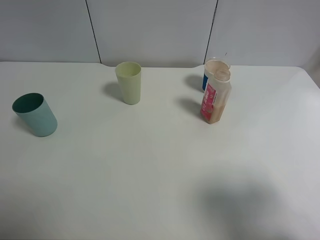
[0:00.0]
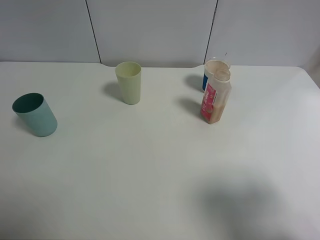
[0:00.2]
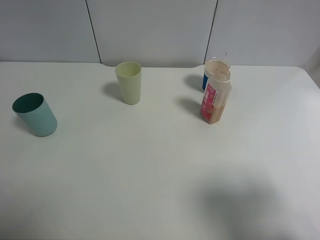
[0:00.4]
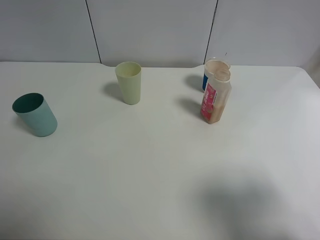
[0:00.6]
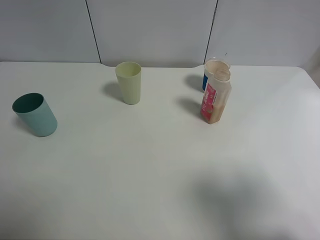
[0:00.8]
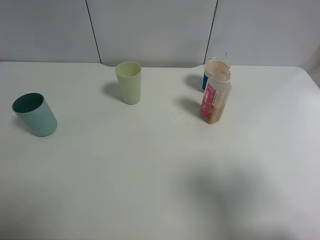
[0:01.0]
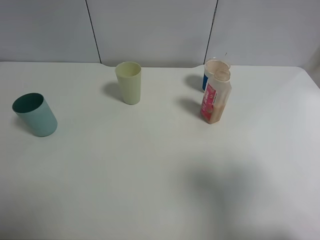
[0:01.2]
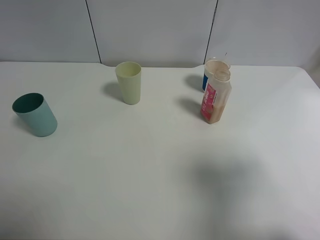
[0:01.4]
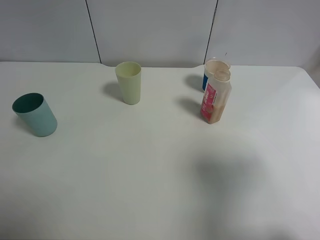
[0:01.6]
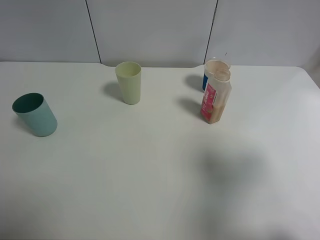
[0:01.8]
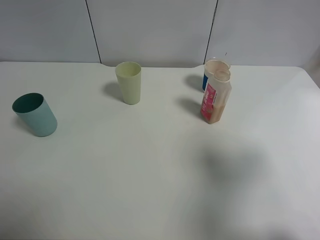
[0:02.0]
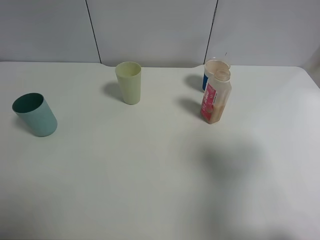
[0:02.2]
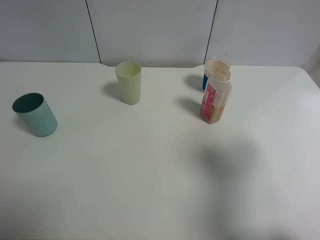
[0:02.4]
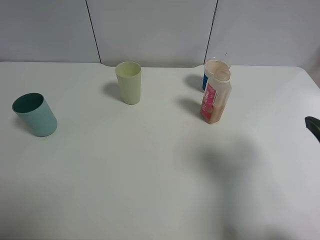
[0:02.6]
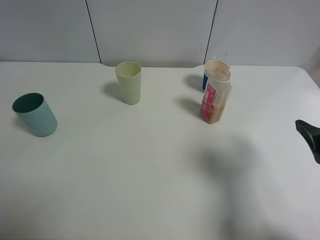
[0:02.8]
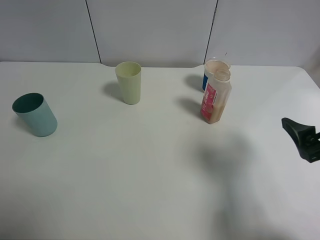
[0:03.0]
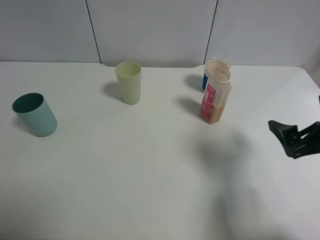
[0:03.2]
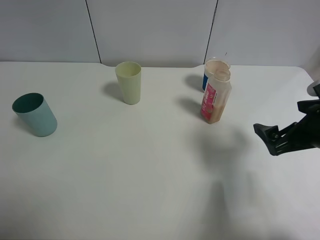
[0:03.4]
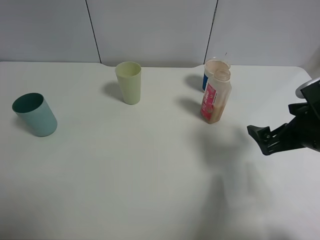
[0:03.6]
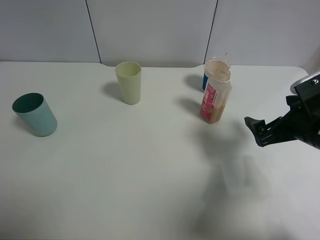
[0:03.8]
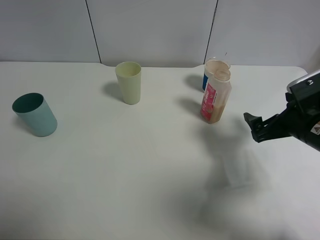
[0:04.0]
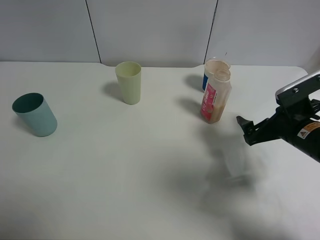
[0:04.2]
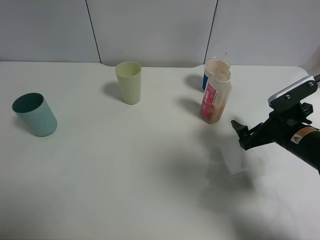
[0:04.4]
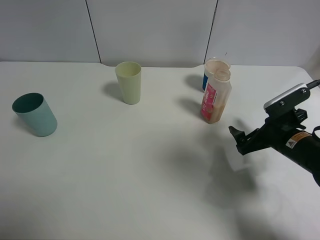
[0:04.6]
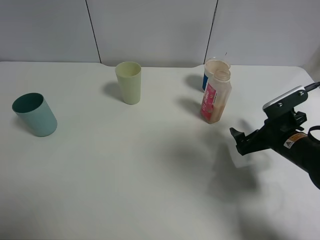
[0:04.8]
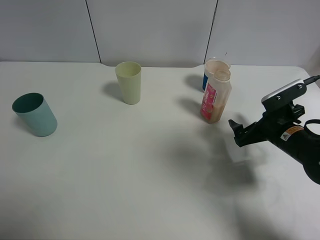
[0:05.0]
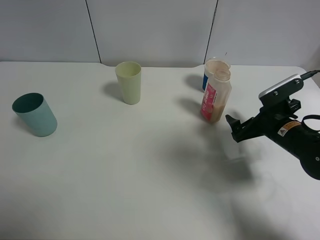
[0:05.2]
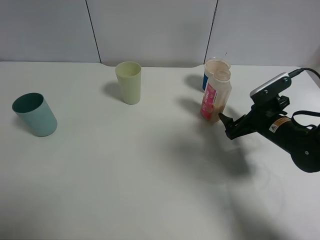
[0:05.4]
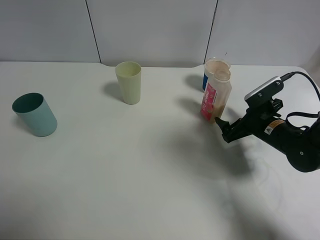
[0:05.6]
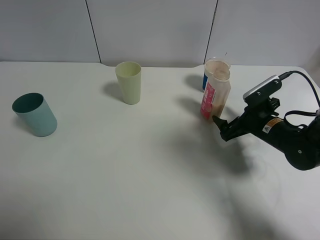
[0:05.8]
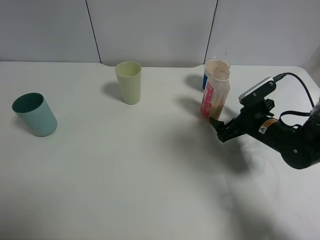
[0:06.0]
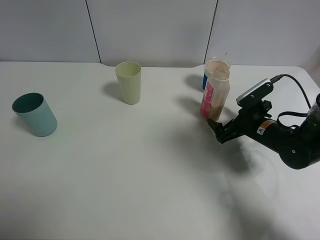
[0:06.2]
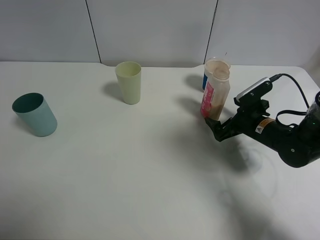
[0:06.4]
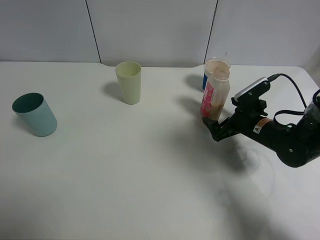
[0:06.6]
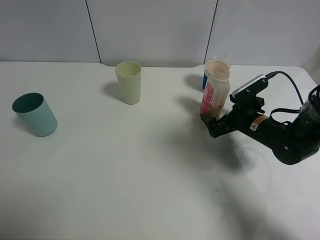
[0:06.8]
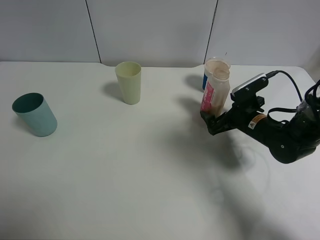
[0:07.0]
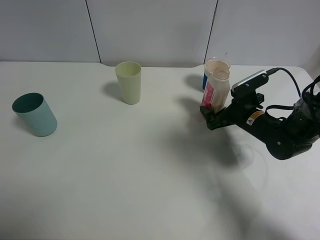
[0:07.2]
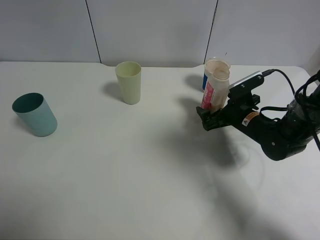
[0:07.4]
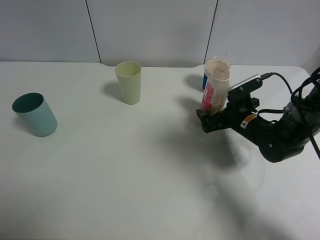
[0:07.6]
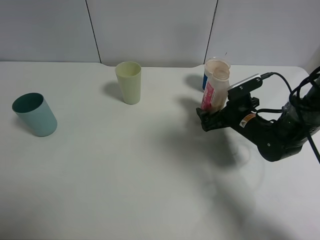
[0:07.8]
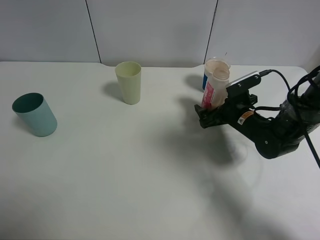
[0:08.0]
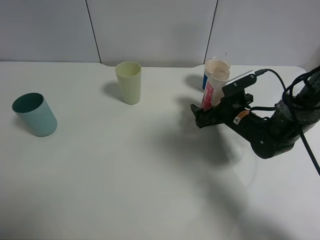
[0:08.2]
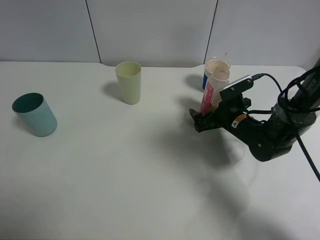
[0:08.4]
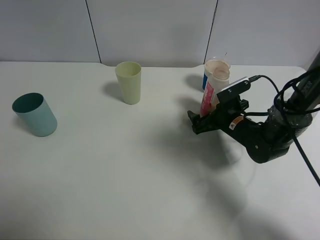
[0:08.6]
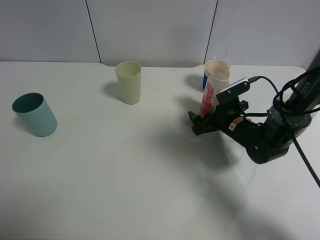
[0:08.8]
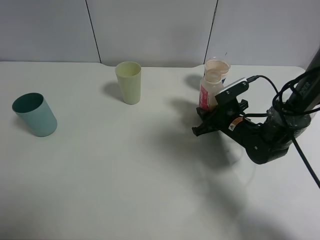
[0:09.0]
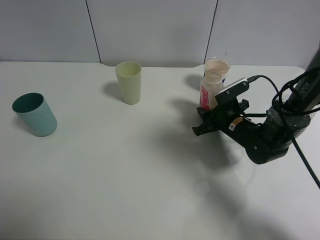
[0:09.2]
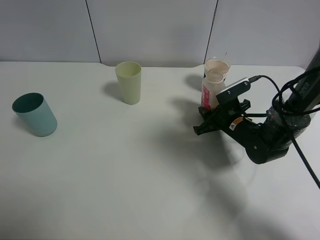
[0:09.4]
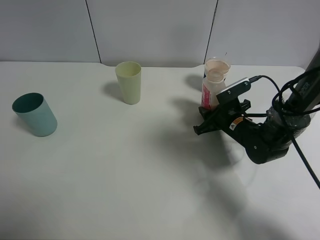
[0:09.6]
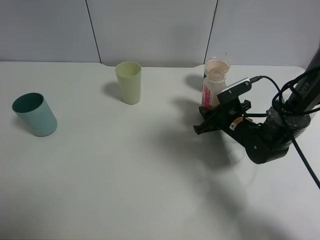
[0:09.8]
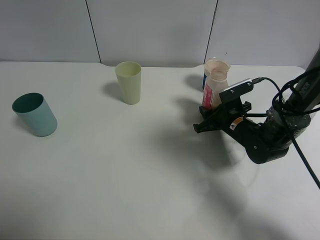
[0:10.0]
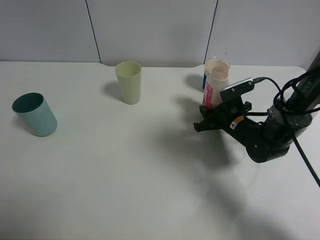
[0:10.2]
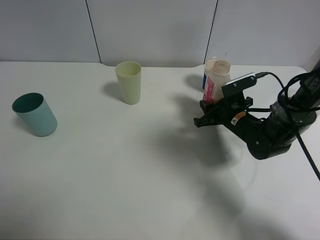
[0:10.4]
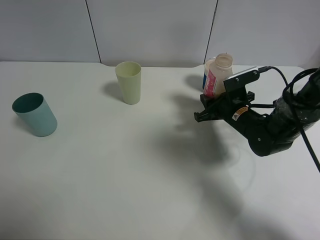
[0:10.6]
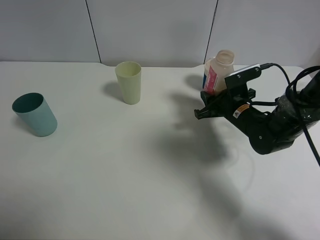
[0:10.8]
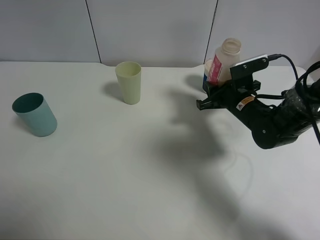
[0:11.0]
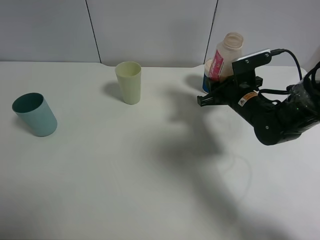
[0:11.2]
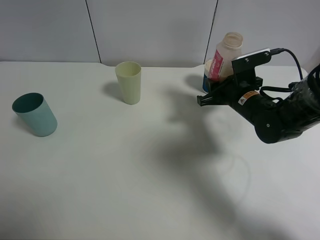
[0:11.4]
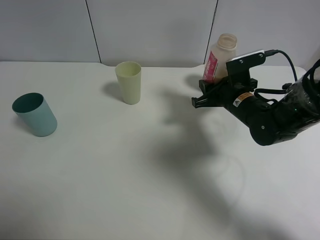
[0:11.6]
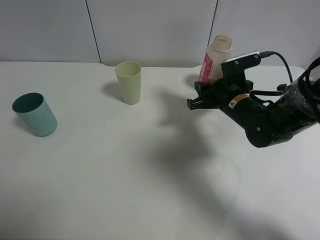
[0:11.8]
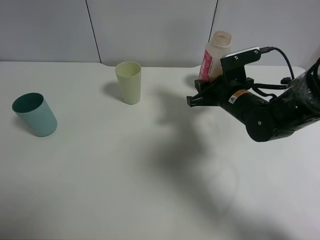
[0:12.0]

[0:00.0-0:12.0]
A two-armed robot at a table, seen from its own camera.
Task of the whole recording: use a clamp to hold the bottle of the drink, pour the beverage into a random cup, then clamp the cup containing the drink and pour the drink into another random cup.
0:00.0 to 0:01.6: The right gripper heads forward, covering approximately 5 cm.
0:01.6 to 0:03.0: The right gripper travels downward by about 10 cm.
0:03.0 to 0:04.4: The right gripper shifts about 15 cm forward and downward.
0:04.4 to 0:06.0: The right gripper goes some 10 cm forward and downward.
0:06.0 to 0:07.6: There are only small adjustments of the grippers.
0:07.6 to 0:09.0: The right gripper closes.
0:09.0 to 0:10.4: The right gripper closes its fingers.
0:10.4 to 0:12.0: The right gripper heads upward, covering roughly 5 cm.

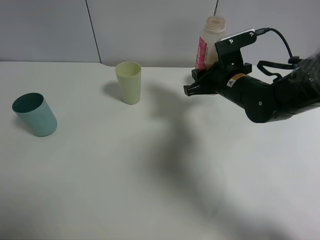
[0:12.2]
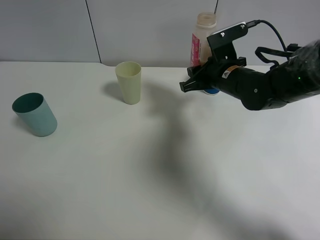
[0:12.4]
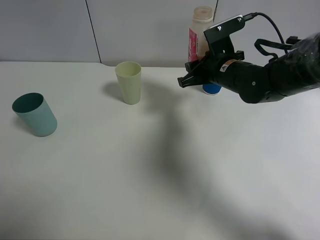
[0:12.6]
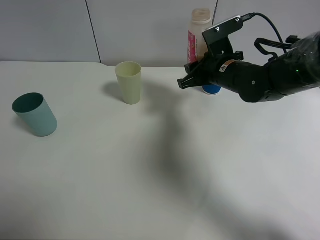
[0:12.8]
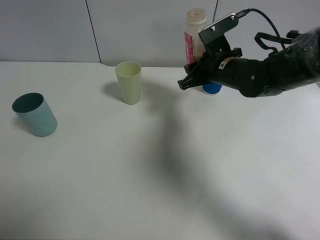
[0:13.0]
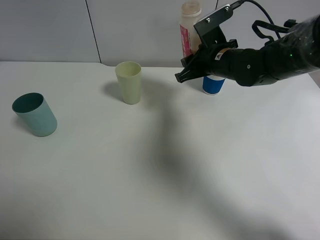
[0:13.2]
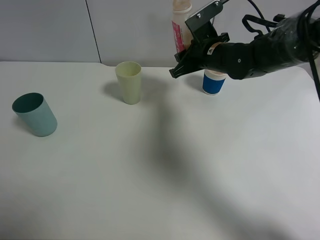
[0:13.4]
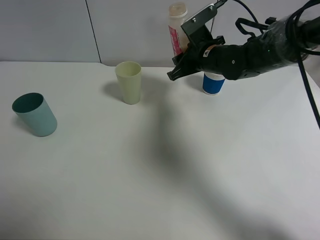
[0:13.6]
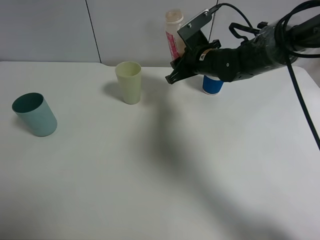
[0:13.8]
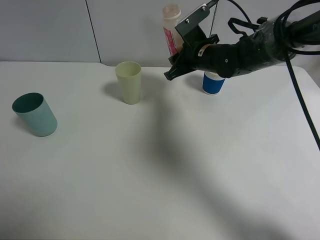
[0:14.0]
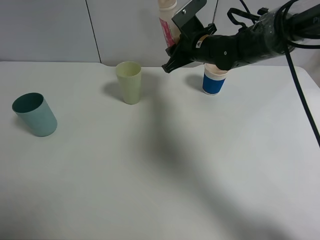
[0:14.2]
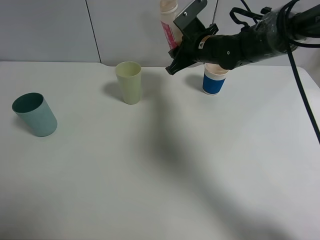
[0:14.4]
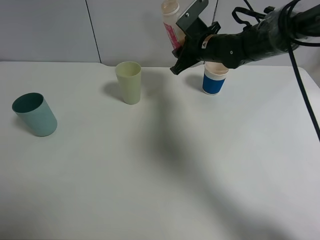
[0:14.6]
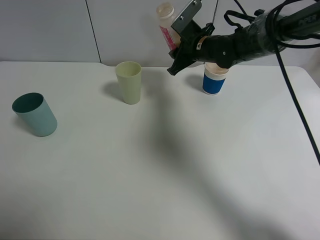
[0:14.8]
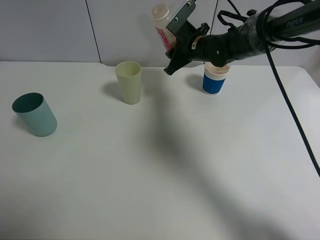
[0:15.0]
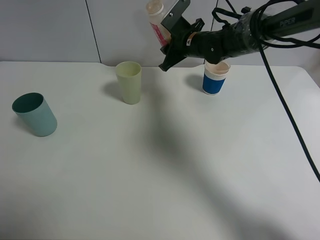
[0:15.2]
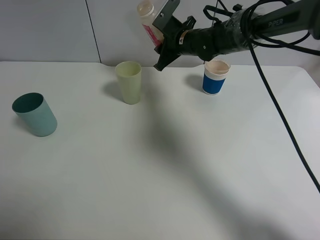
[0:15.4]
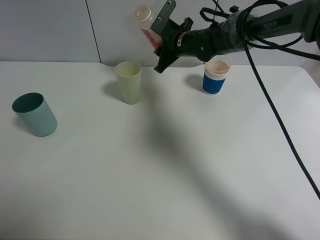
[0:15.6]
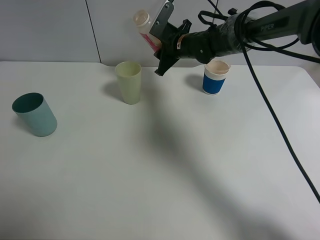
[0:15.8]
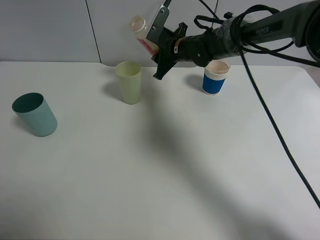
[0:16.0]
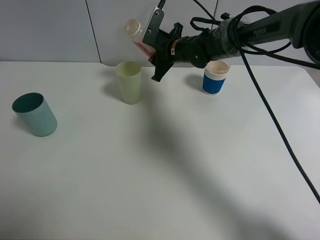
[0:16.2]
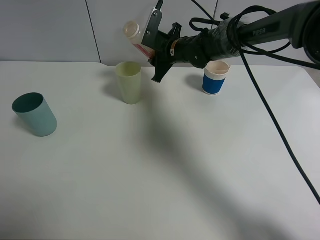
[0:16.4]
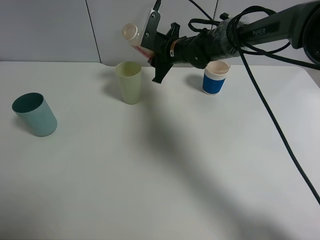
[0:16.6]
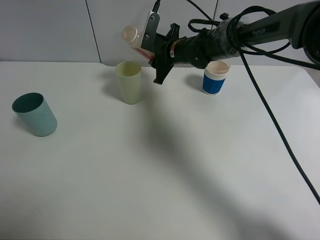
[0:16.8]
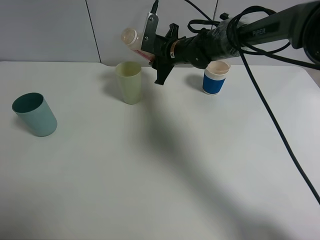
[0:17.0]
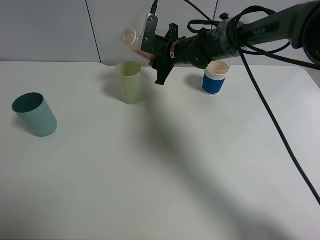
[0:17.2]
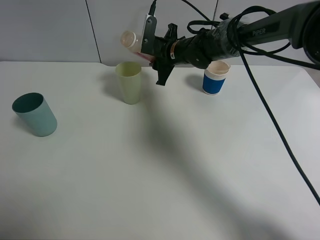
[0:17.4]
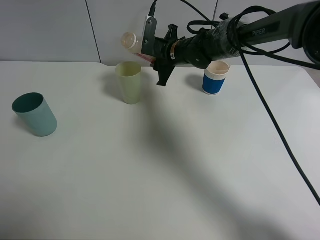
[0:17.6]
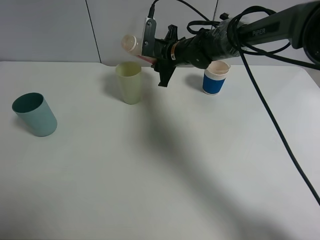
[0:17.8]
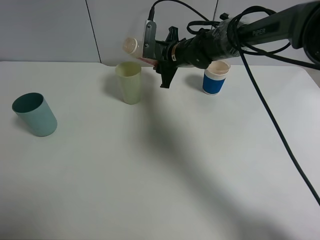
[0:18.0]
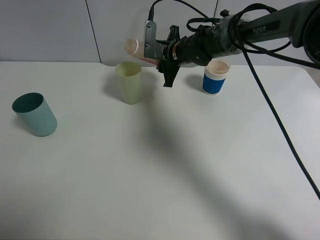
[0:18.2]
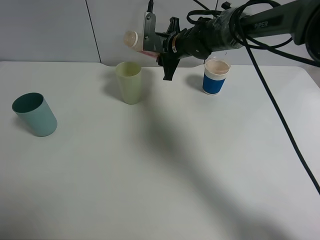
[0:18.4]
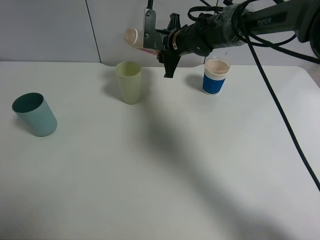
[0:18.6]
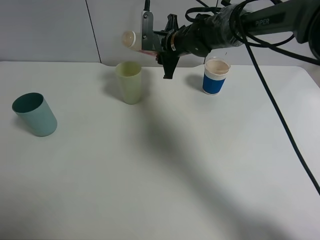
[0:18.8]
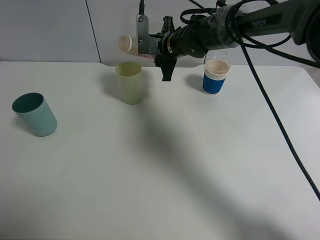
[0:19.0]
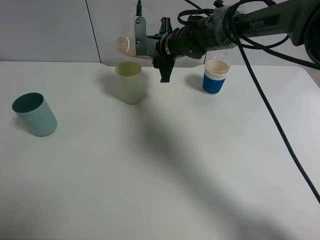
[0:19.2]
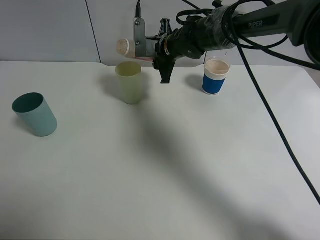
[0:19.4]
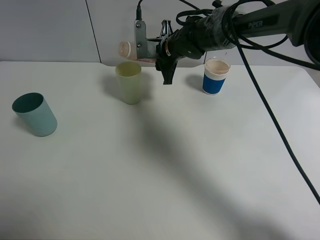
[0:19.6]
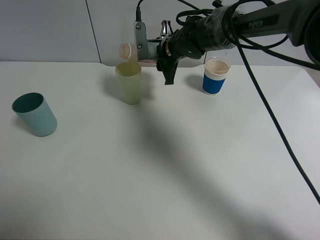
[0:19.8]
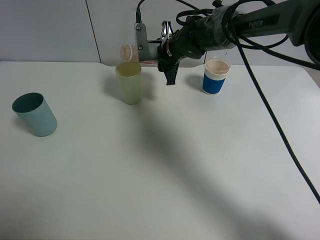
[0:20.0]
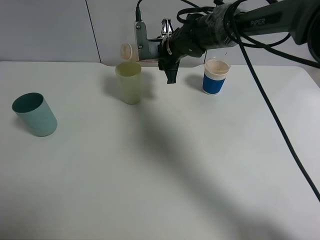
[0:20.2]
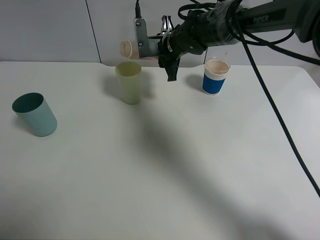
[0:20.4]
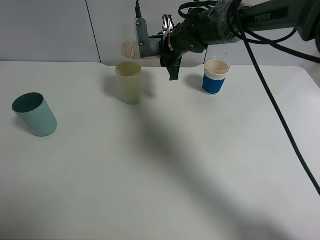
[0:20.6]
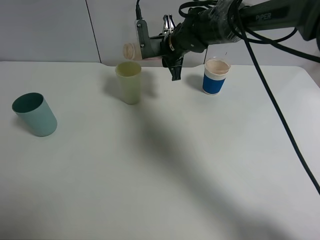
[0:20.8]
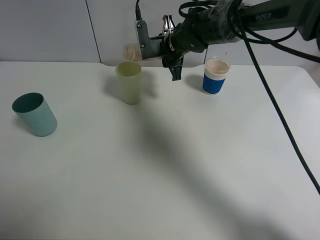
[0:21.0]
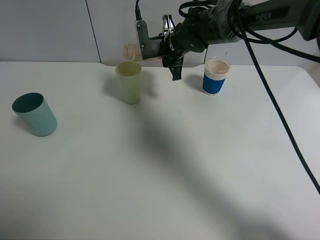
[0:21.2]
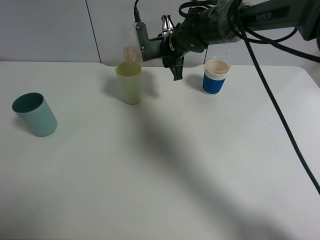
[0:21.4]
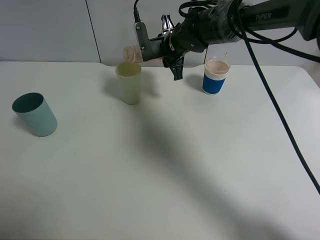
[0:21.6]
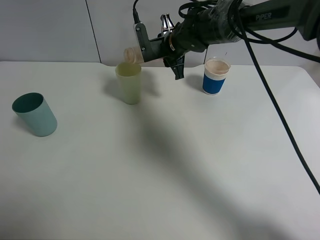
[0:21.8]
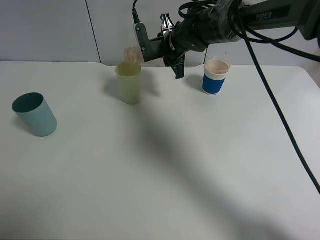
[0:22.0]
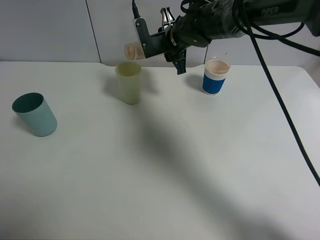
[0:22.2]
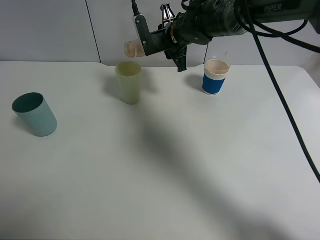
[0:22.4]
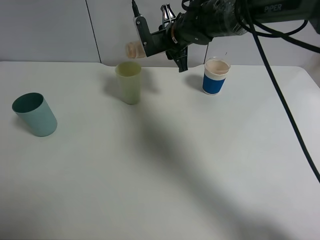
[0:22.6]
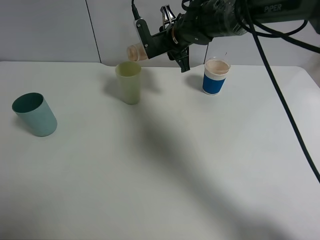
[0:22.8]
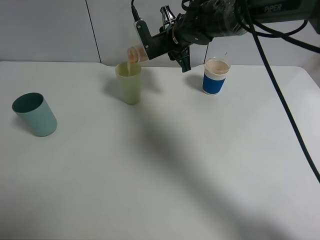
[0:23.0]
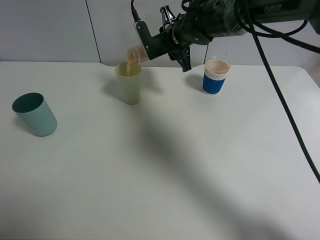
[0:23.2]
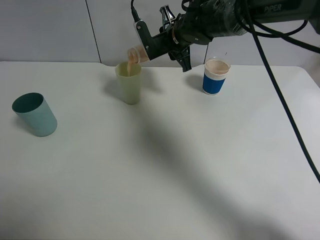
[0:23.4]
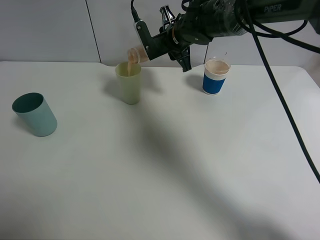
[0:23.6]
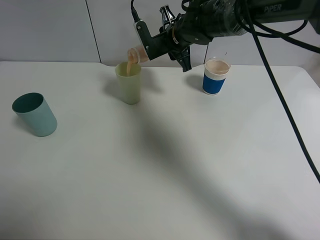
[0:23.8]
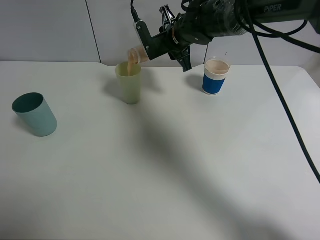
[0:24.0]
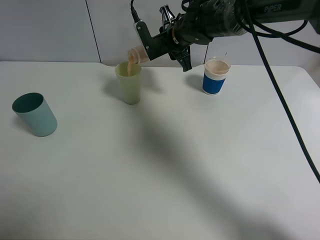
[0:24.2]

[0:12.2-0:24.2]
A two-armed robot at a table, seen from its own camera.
Task of the whole recording: use a clamp to hold the bottle of the drink, pour the beverage into a random cup, then clamp the cup containing the drink and pour the drink into another random cup.
0:12.2 to 0:13.8: The right gripper heads forward, covering about 10 cm.
0:13.8 to 0:15.2: The right gripper goes some 5 cm forward.
0:15.2 to 0:16.6: The right gripper ends up about 5 cm from where it was.
0:16.6 to 0:18.2: The grippers stay close to where they were, moving slightly.
0:18.2 to 0:21.2: The grippers make only small movements.
0:21.2 to 0:24.2: There are only small adjustments of the grippers.
